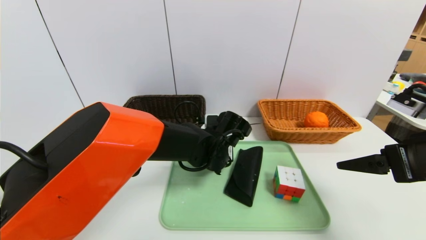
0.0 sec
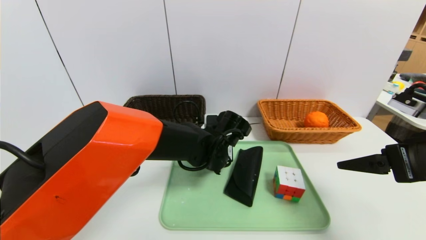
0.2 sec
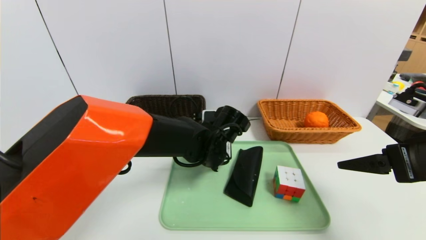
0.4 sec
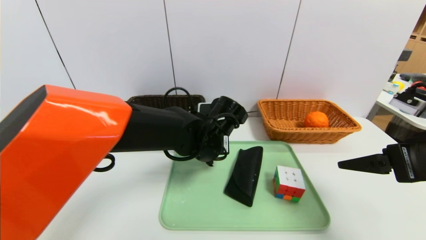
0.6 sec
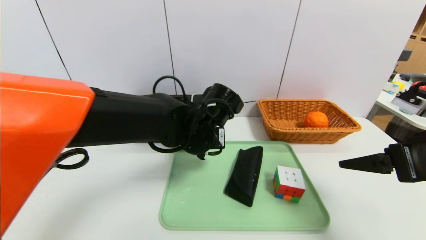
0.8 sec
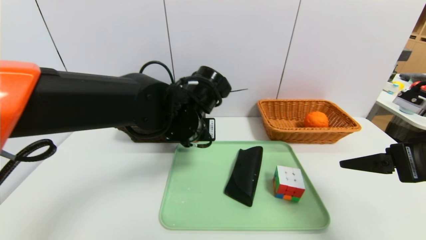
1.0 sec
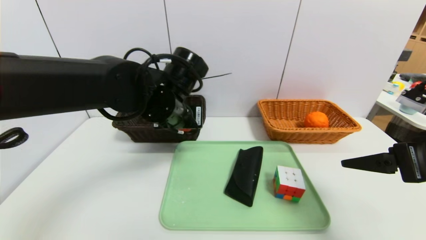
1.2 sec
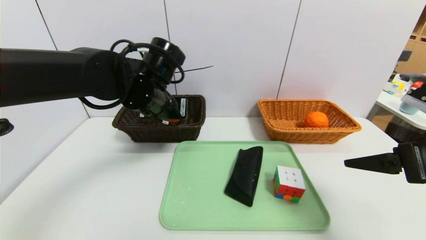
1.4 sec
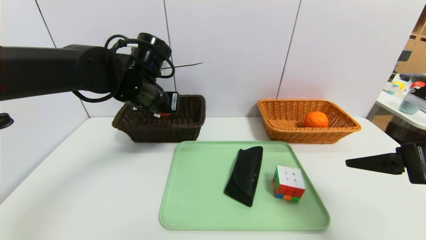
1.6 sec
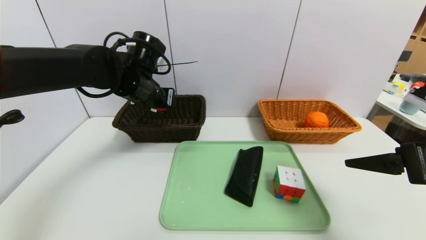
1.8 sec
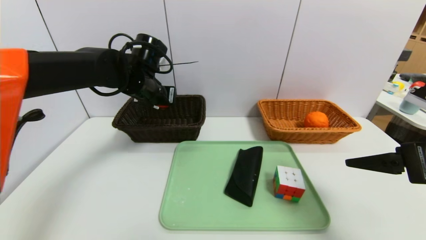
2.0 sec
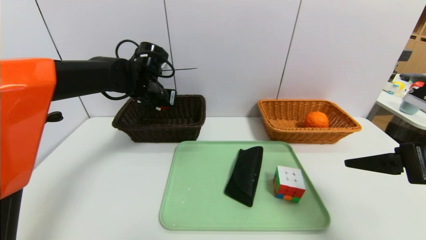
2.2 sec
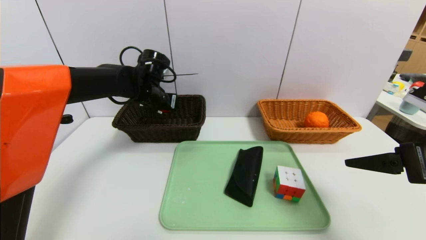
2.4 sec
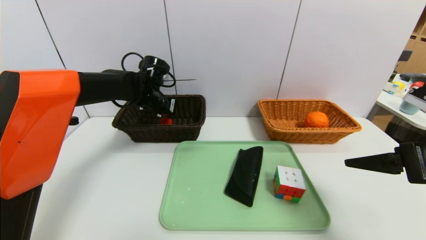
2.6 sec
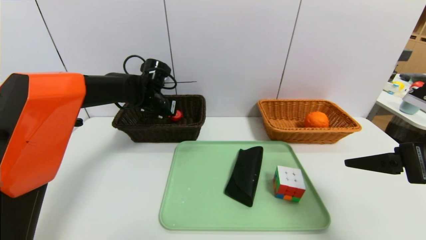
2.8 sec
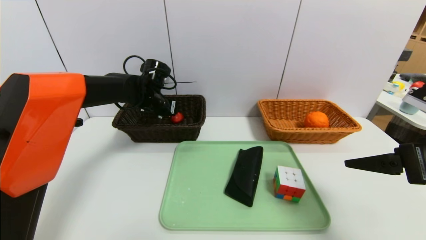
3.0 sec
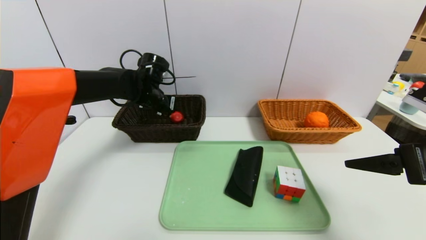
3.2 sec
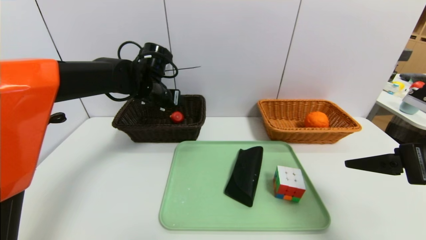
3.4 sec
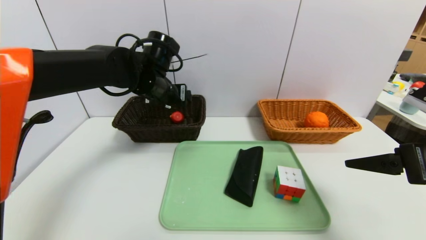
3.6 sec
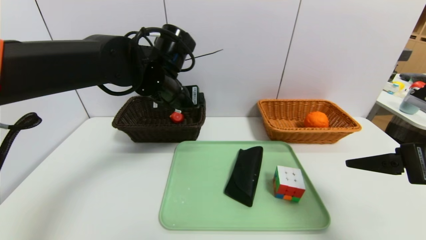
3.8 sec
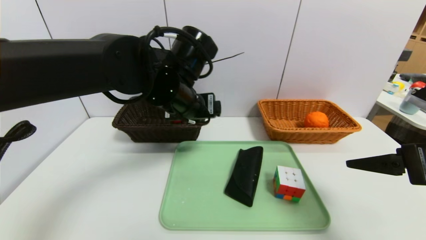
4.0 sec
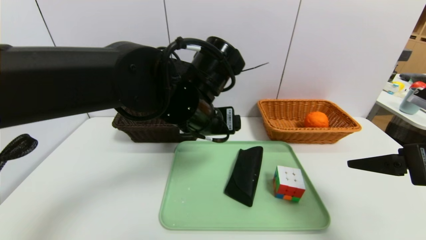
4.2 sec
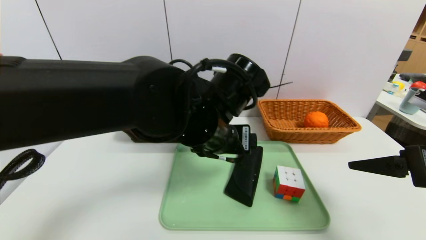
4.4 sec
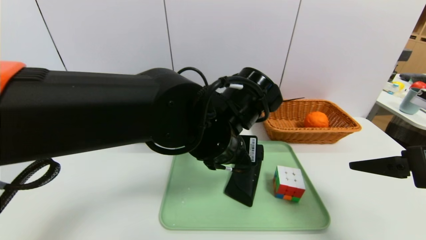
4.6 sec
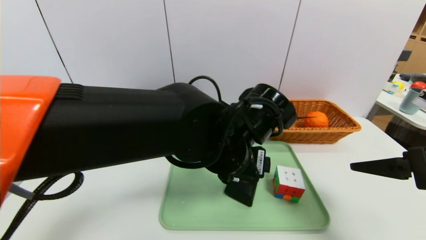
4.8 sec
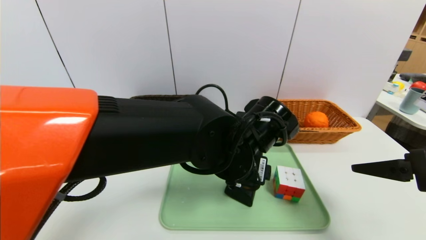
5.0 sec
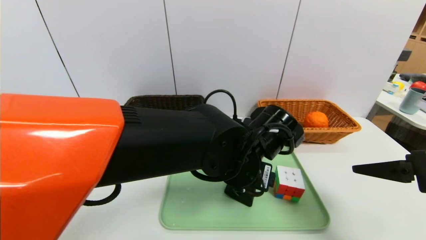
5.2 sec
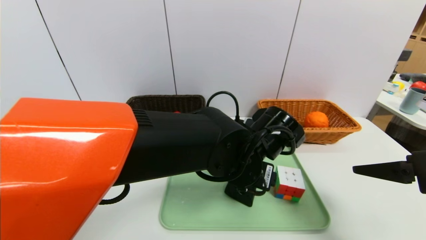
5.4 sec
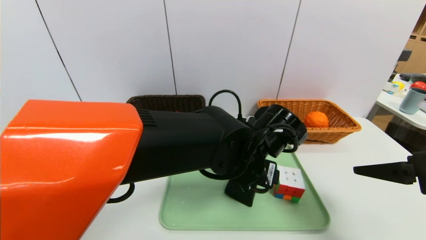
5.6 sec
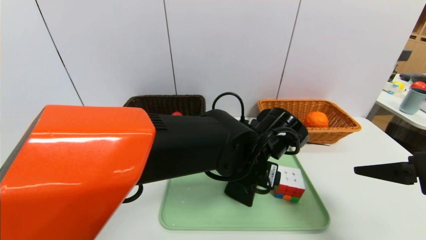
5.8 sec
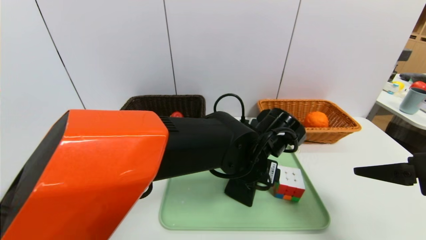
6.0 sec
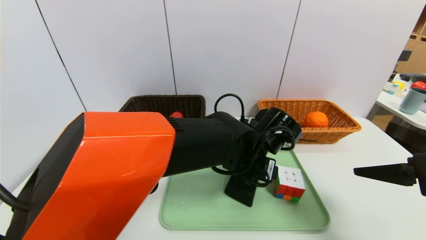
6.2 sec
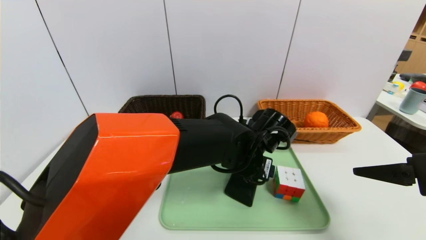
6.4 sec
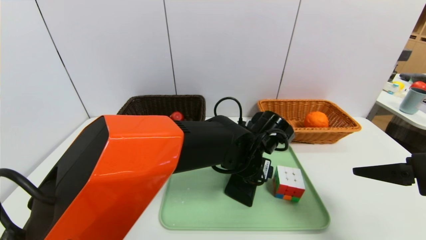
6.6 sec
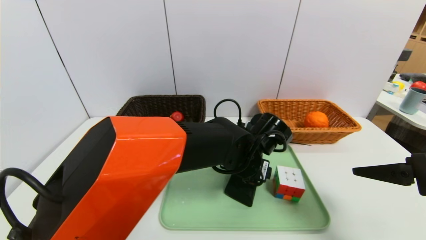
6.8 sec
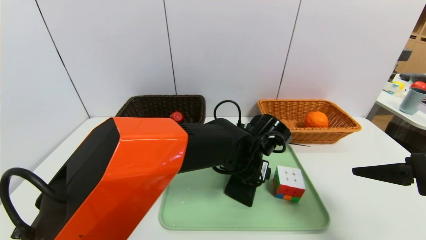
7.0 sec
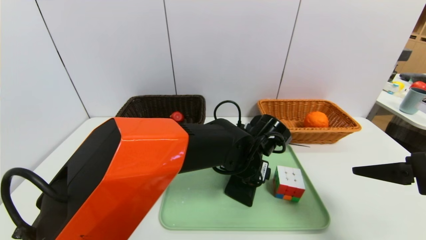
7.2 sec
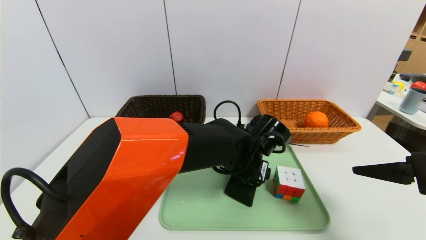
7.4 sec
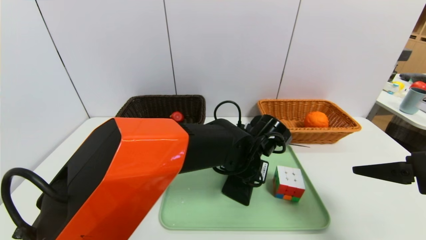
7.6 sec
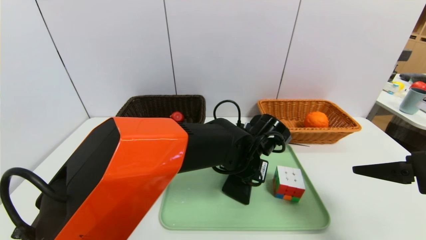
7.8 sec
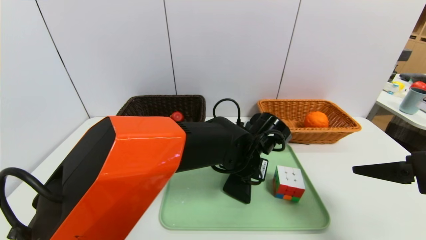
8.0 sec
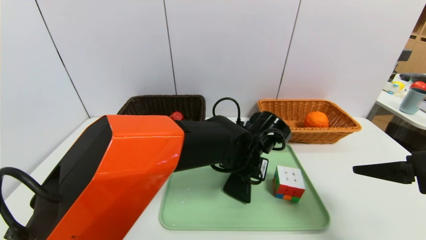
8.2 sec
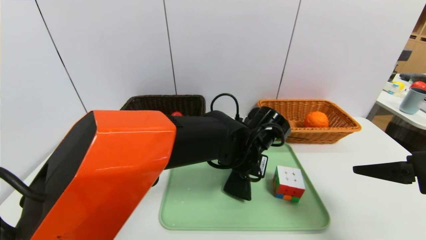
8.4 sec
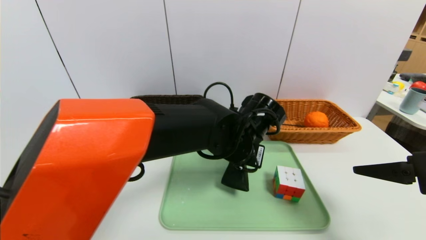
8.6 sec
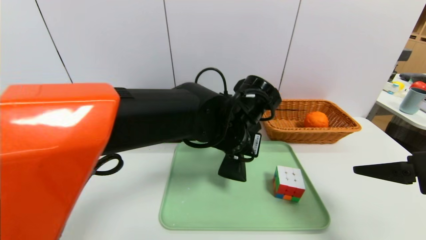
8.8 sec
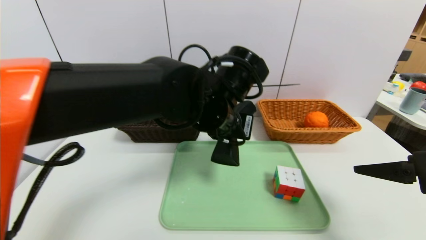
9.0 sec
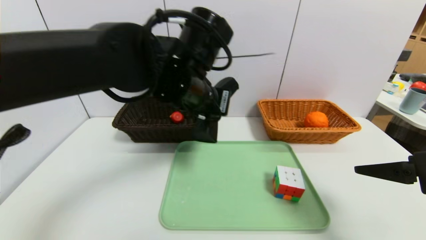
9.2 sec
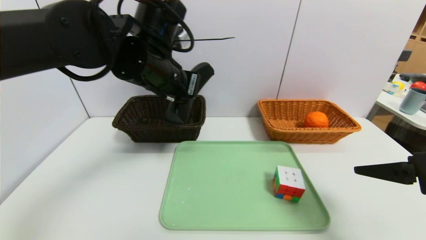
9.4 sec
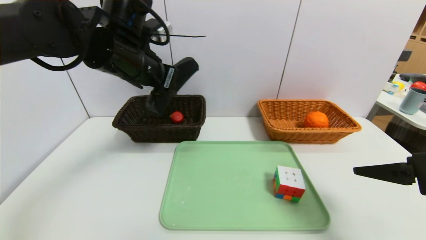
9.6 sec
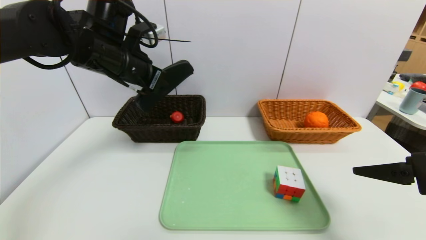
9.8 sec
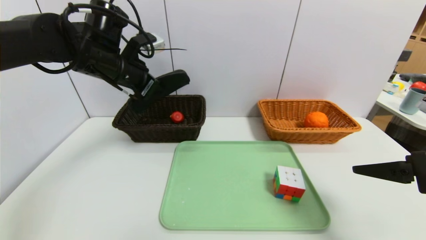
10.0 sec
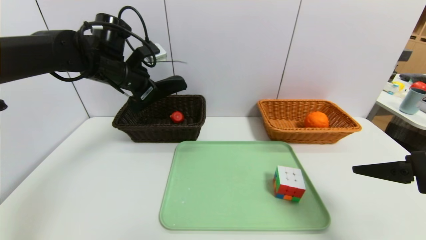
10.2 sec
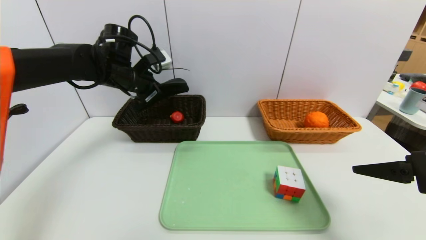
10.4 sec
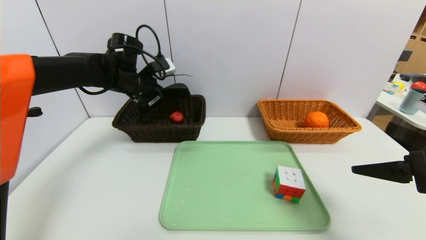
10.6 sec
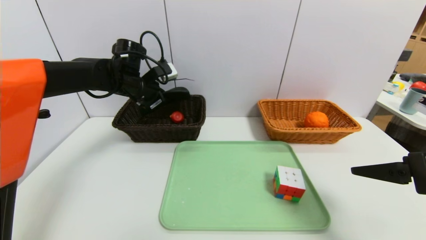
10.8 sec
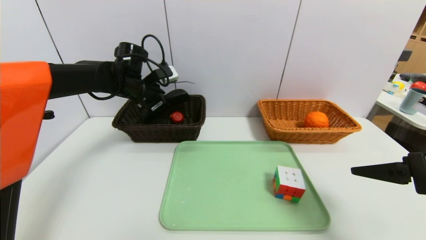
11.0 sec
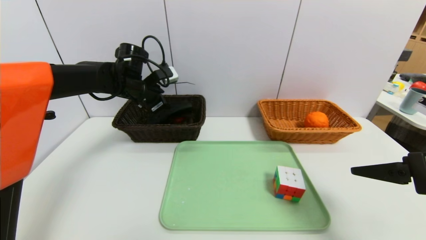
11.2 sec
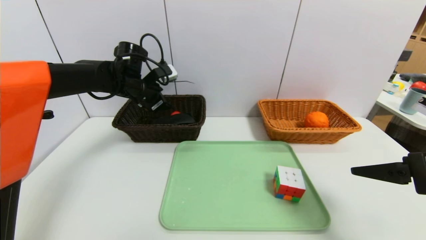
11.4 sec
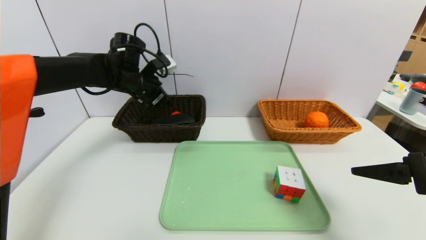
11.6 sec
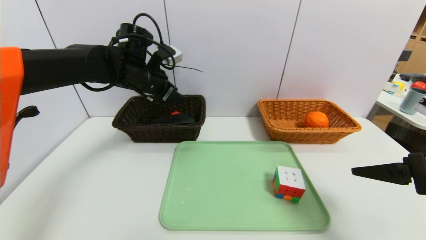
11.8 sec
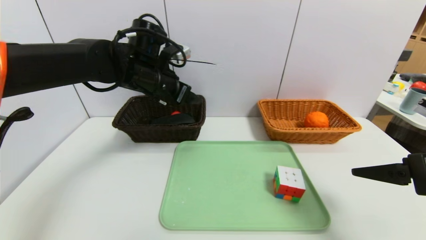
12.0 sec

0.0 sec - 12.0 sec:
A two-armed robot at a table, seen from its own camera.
Task of the whole recording: place the food in the right basket with the right gripper, and place the non food items in the left basket with the left gripper.
Step, 0.0 sec - 3.2 sec: Grasp the red duck and put it in the left basket.
Step, 3.4 sec - 12.0 sec: Grasp the glasses case and put it in the left basket.
0.0 sec - 1.6 sec: The left gripper goes approximately 20 cm to the left and upward.
1.6 sec - 3.0 sec: The left gripper moves forward and downward, approximately 10 cm, and opens its fingers.
3.0 sec - 4.4 sec: The left gripper goes some 25 cm backward and to the right.
4.4 sec - 6.0 sec: The left gripper travels downward and to the right by approximately 10 cm.
6.0 sec - 7.6 sec: The grippers move only a little.
7.6 sec - 9.0 sec: The left gripper goes about 15 cm upward and to the left, and closes.
9.0 sec - 10.4 sec: The left gripper travels to the left and forward by about 25 cm.
10.4 sec - 12.0 sec: The left gripper heads to the right, covering approximately 5 cm, and opens up.

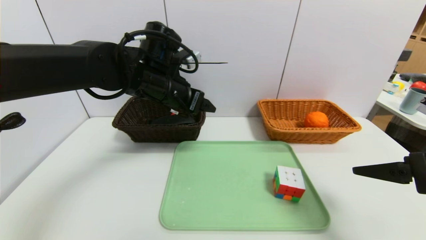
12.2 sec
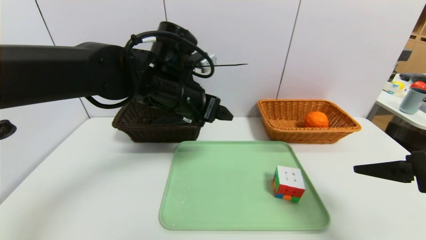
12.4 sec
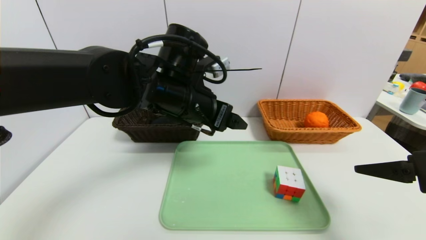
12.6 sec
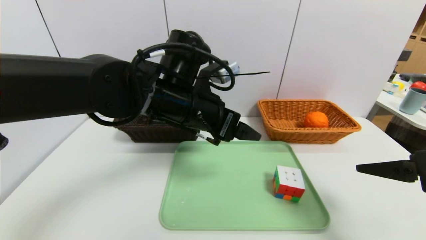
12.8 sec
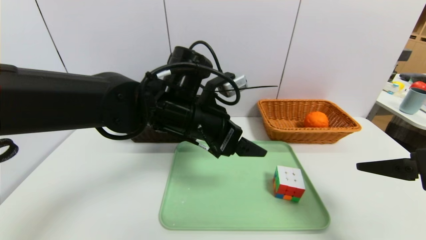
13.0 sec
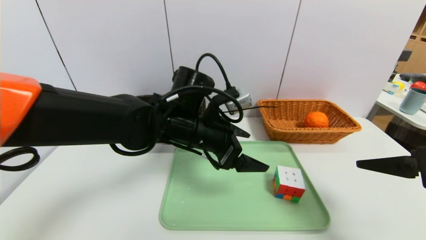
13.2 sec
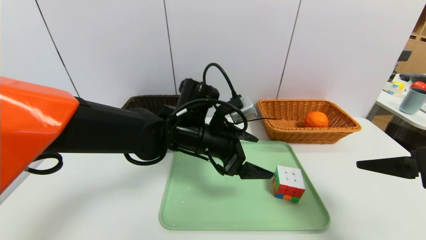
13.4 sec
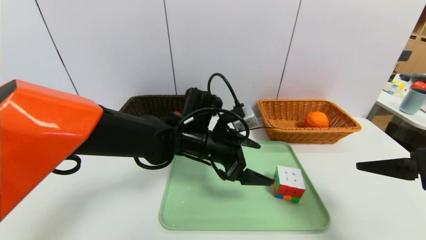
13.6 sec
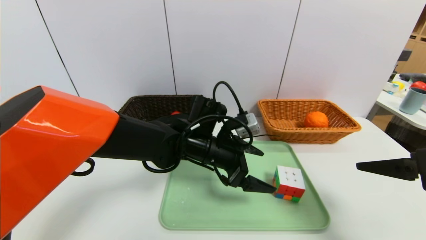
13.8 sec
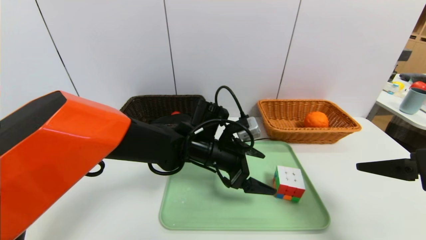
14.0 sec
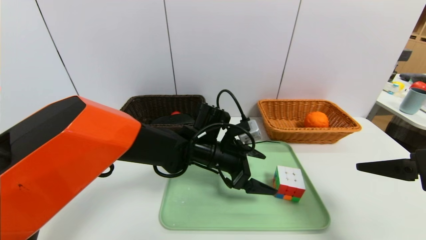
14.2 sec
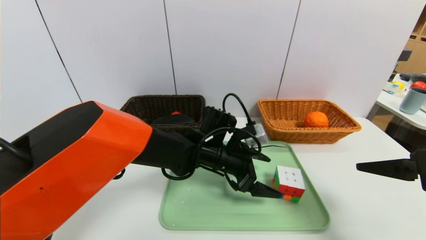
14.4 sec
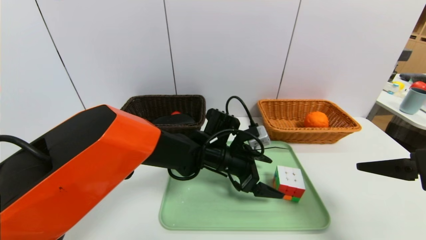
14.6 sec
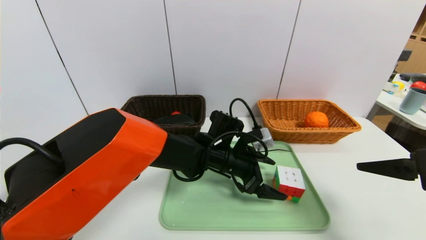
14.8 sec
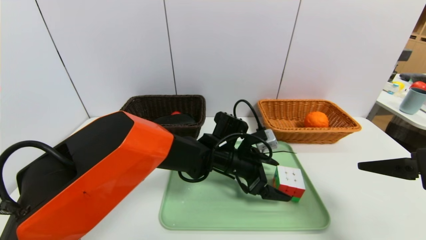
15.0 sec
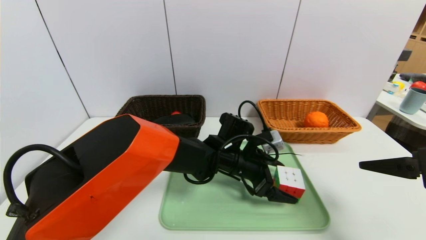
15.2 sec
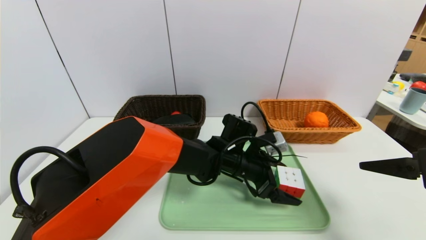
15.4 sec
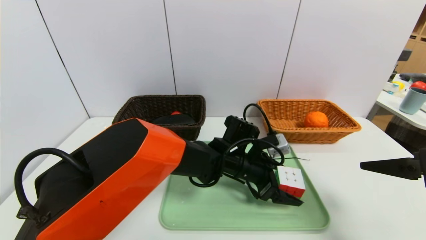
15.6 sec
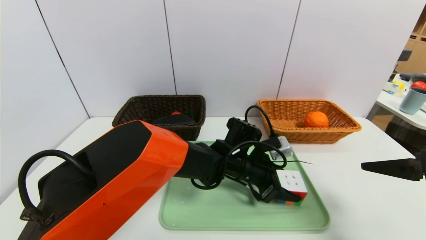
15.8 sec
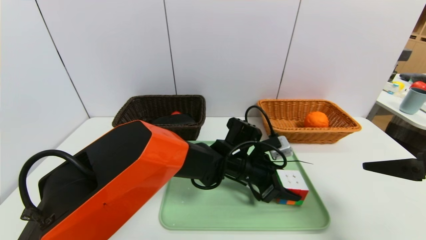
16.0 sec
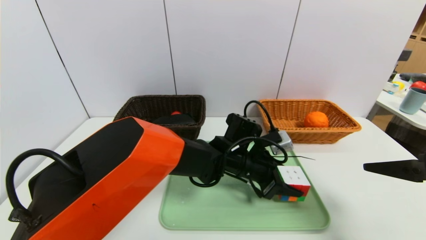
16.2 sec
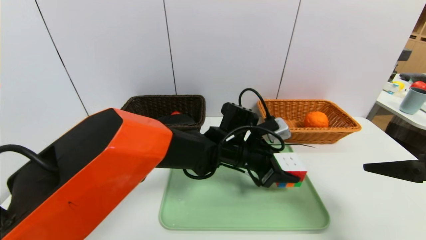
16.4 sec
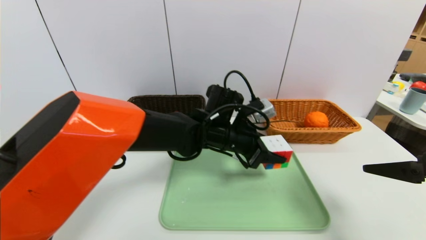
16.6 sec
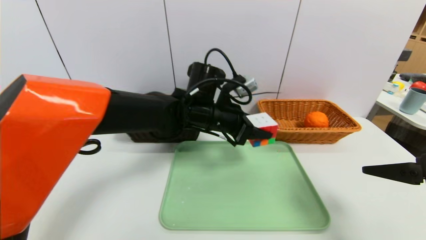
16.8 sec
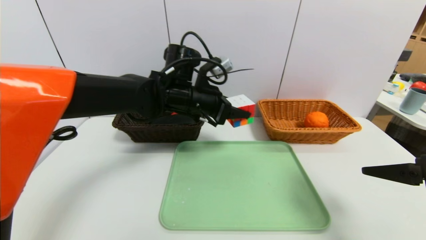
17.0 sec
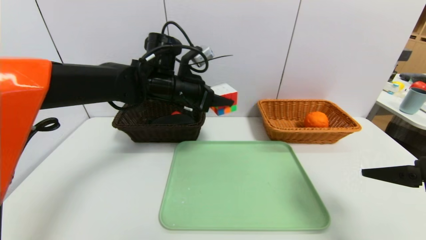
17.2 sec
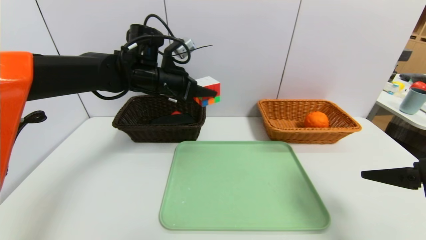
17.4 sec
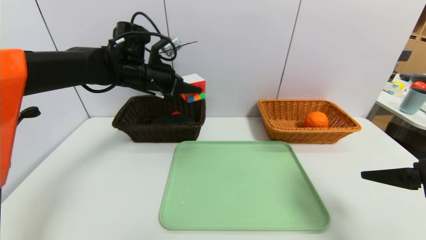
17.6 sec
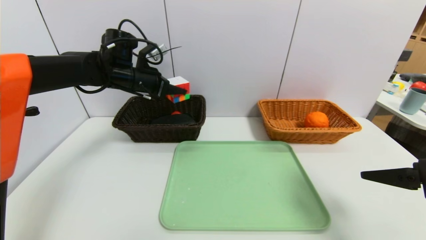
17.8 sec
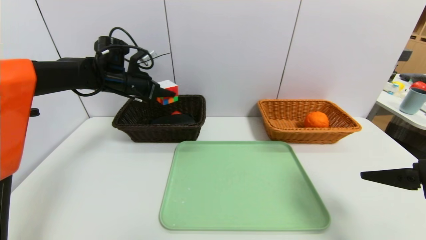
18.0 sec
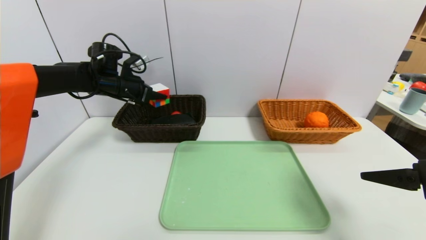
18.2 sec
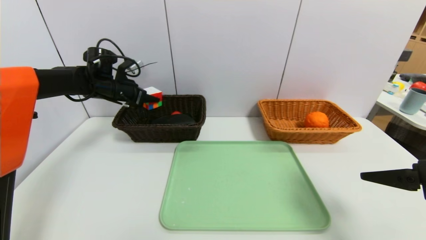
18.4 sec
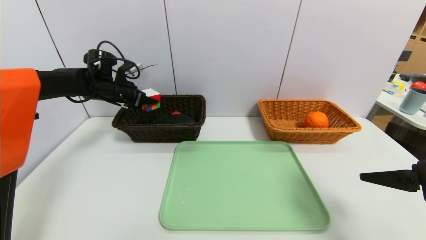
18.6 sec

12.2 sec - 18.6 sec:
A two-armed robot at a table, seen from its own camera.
Task of the whole recording: place the food in the right basket with the right gripper, and place the non food items in the left basket with the left gripper.
12.2 sec - 13.8 sec: The left gripper moves downward and to the right, about 15 cm.
13.8 sec - 15.4 sec: The left gripper travels to the right and downward by some 10 cm.
15.4 sec - 17.0 sec: The left gripper shifts roughly 15 cm upward and to the left, and closes its fingers.
17.0 sec - 18.6 sec: The left gripper moves to the left and forward, about 25 cm.
